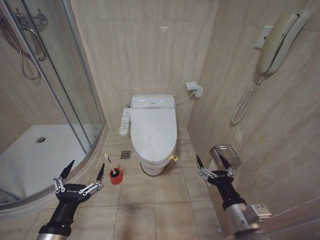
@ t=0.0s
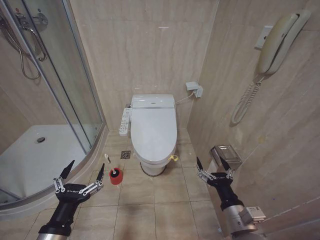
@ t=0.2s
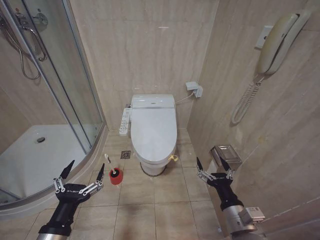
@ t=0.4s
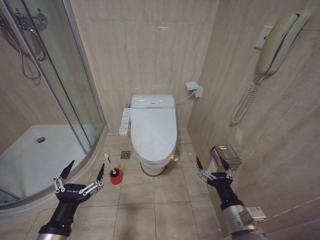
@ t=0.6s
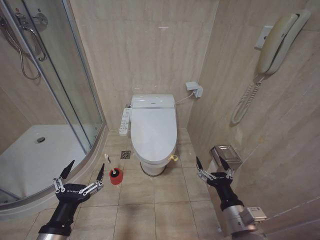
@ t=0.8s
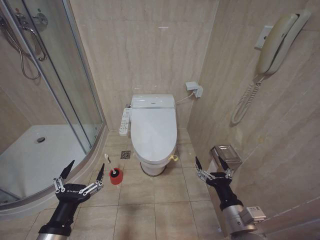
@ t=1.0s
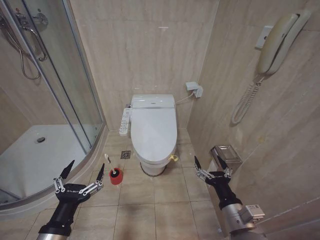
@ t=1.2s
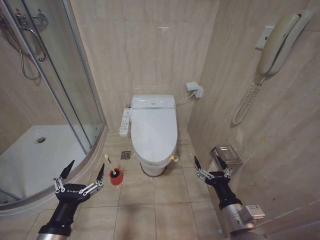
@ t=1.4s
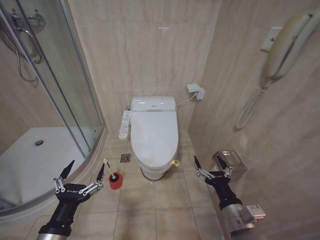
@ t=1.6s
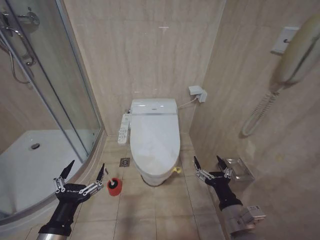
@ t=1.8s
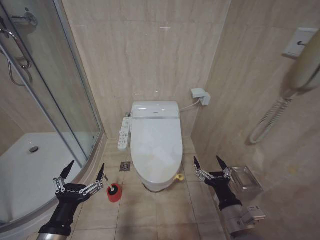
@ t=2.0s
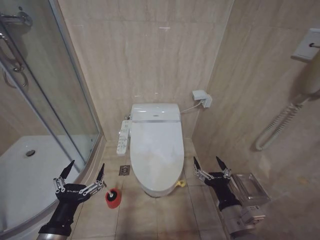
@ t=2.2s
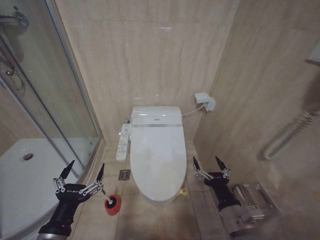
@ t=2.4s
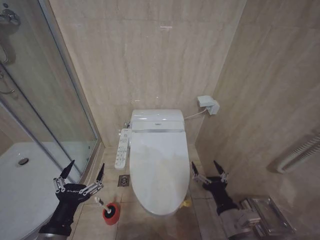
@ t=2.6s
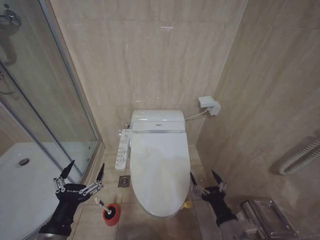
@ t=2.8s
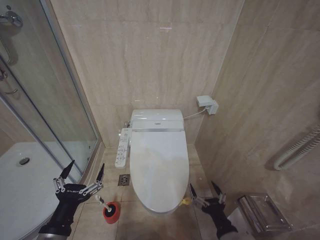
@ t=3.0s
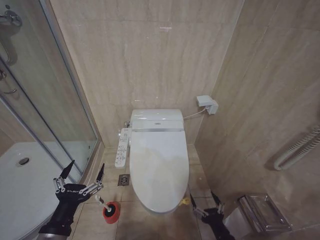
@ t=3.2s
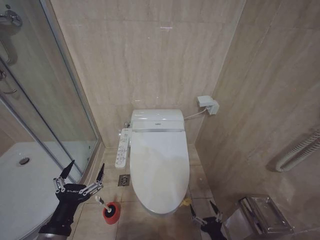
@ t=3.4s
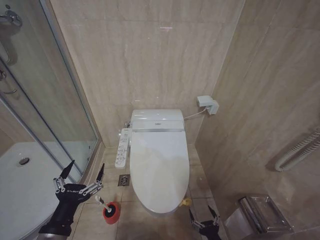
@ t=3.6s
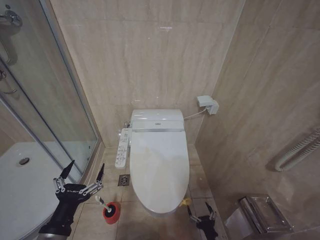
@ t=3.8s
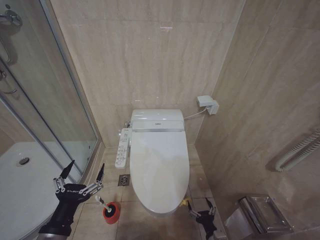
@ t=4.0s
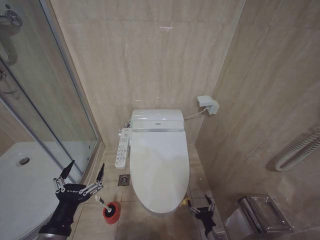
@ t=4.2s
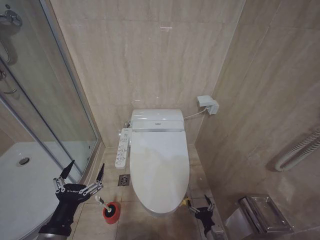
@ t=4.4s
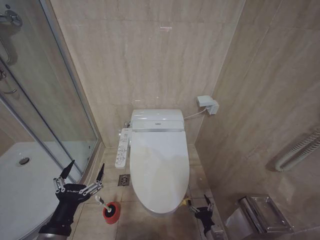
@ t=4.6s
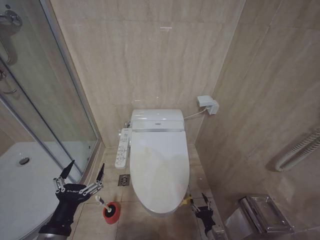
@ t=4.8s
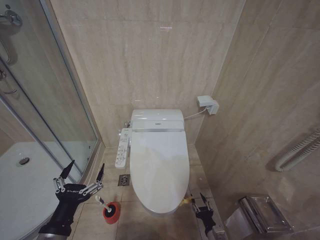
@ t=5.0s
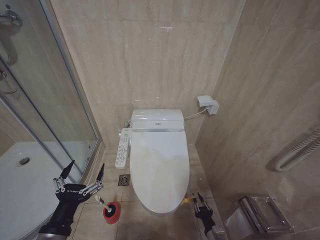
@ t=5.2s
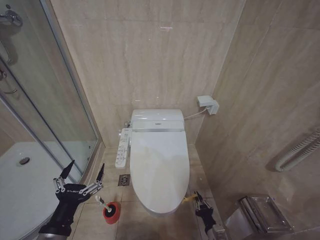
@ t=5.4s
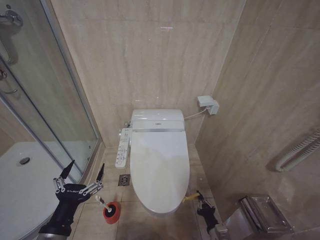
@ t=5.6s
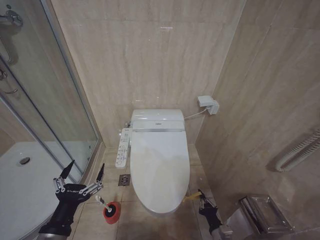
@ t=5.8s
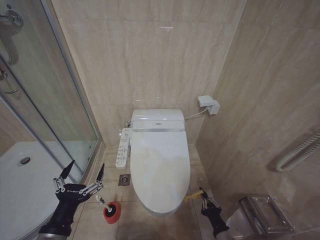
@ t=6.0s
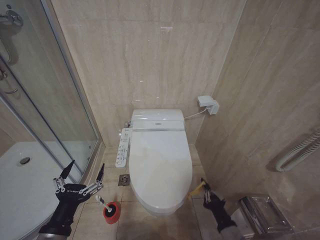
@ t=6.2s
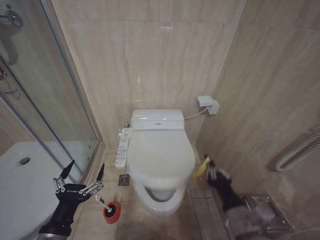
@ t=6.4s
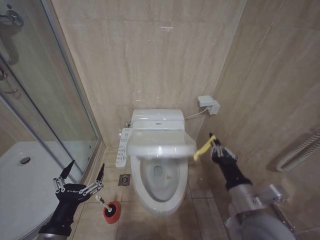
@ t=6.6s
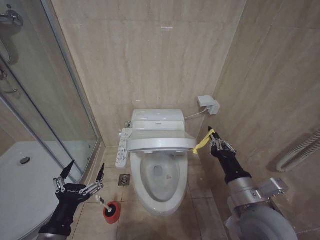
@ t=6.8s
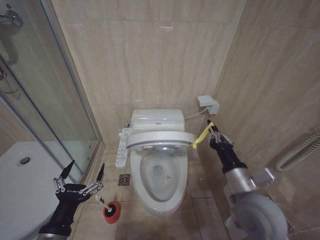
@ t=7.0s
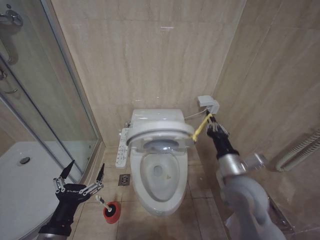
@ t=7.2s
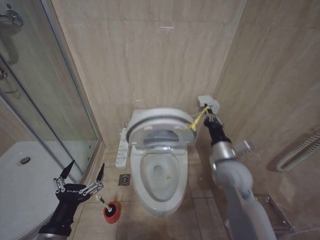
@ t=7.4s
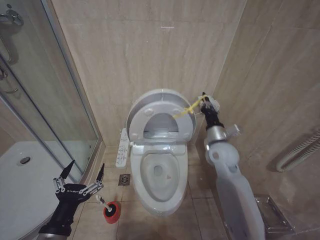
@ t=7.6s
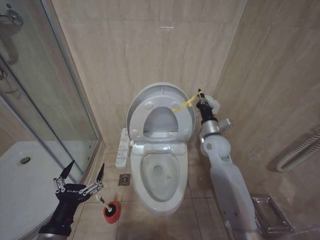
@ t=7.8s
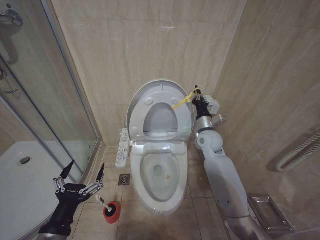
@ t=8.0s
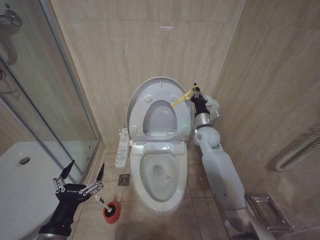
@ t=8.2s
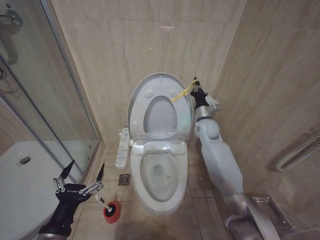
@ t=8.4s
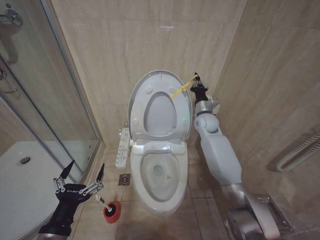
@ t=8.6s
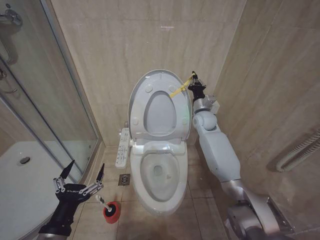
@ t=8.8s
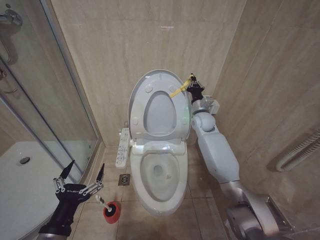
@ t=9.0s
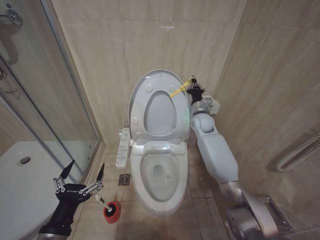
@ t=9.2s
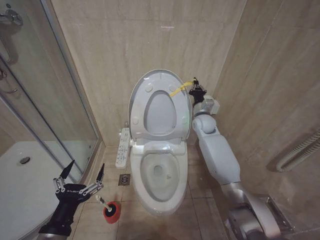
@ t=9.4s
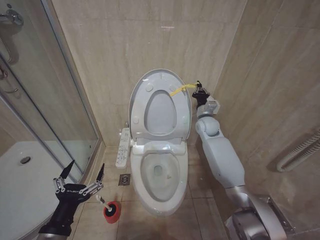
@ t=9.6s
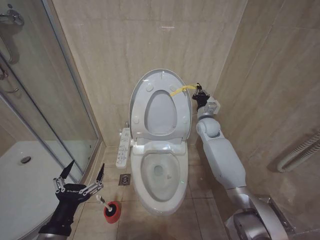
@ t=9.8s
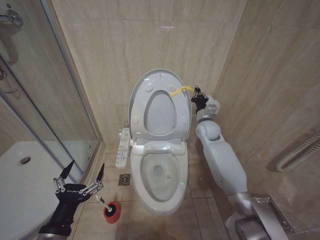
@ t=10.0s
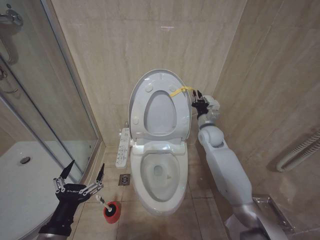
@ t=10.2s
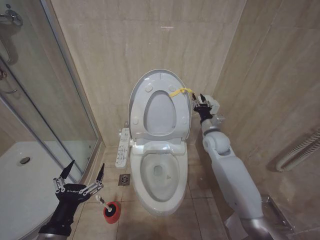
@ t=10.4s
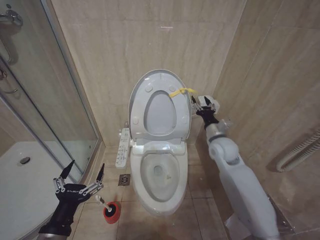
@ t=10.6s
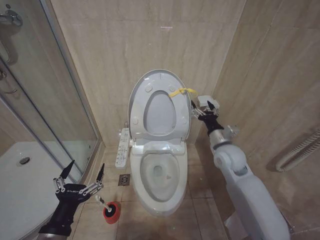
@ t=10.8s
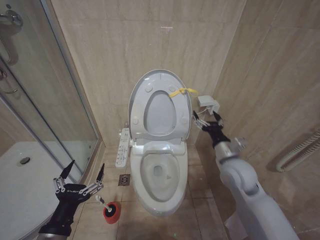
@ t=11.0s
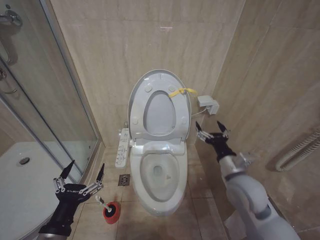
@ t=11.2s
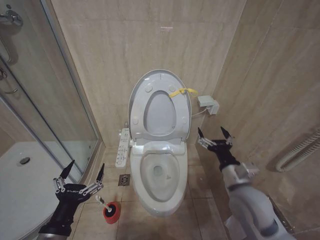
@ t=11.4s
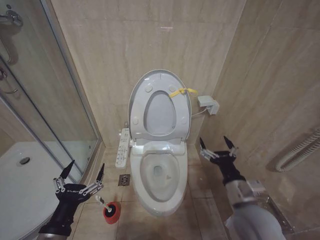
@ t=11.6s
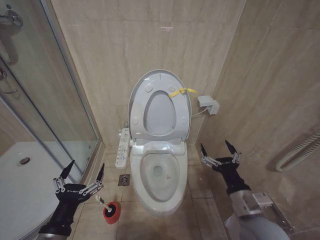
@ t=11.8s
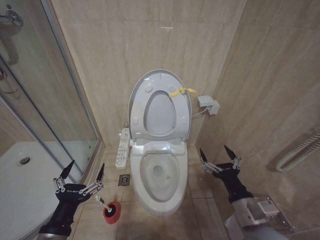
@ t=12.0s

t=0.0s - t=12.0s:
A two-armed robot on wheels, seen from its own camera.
Task of the whole recording: Open the toilet lid, clean the toilet bowl with a toilet brush, close the toilet lid, and flush.
t=1.6s - t=3.0s: The right gripper heads downward, covering approximately 5 cm.
t=3.0s - t=4.4s: The right gripper goes roughly 20 cm downward.
t=4.4s - t=6.0s: The right gripper moves upward, approximately 5 cm, and closes up.
t=6.0s - t=7.6s: The right gripper is displaced upward and forward by some 35 cm.
t=7.6s - t=9.0s: The right gripper heads forward, covering some 20 cm.
t=9.0s - t=10.4s: The right gripper is displaced backward by about 10 cm.
t=10.4s - t=12.0s: The right gripper is displaced backward by approximately 30 cm, and opens up.

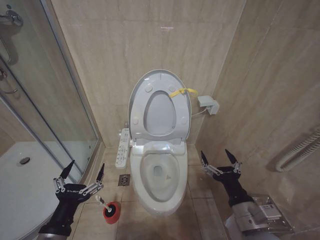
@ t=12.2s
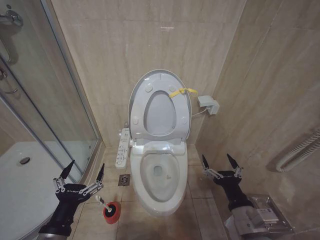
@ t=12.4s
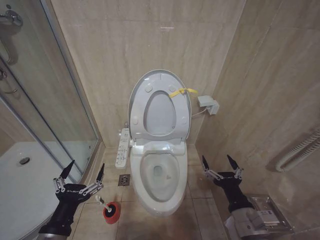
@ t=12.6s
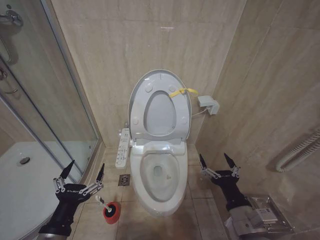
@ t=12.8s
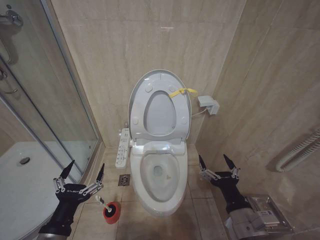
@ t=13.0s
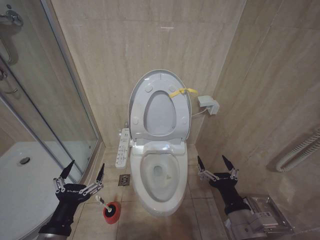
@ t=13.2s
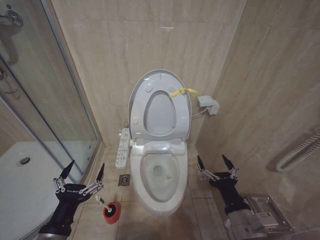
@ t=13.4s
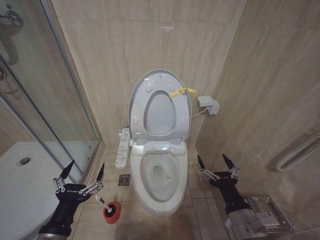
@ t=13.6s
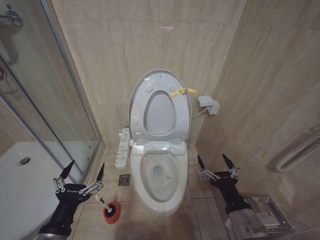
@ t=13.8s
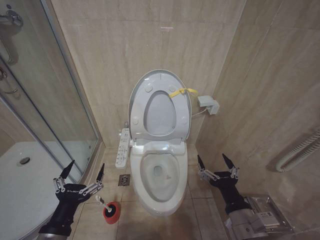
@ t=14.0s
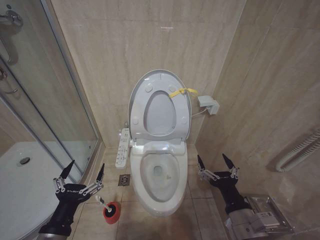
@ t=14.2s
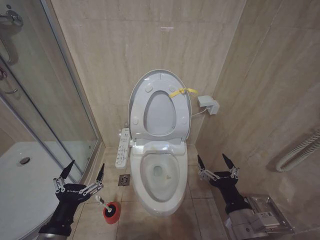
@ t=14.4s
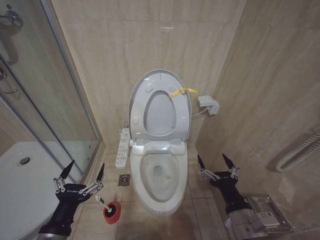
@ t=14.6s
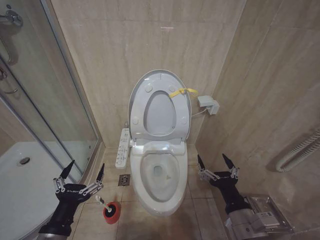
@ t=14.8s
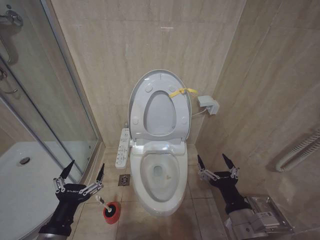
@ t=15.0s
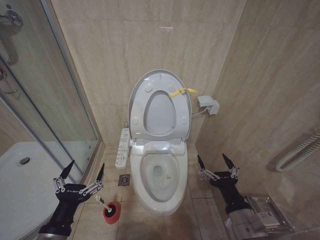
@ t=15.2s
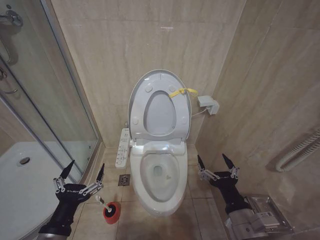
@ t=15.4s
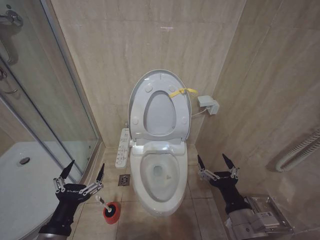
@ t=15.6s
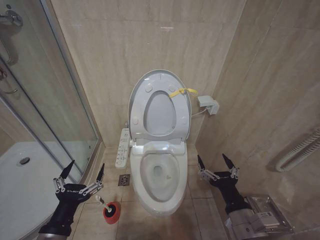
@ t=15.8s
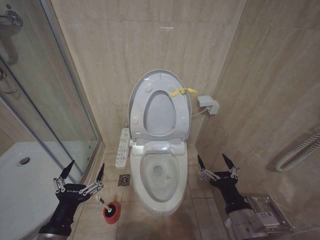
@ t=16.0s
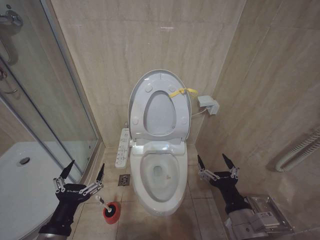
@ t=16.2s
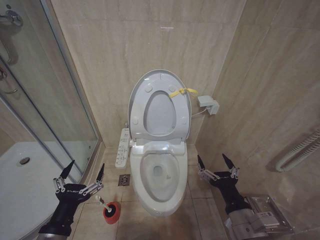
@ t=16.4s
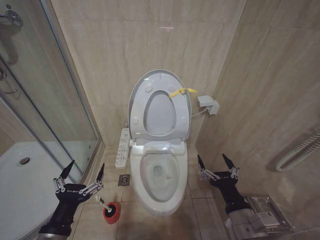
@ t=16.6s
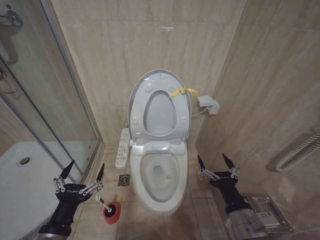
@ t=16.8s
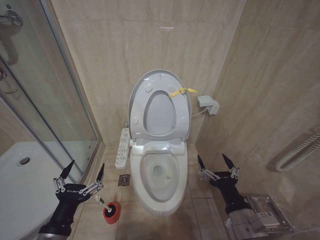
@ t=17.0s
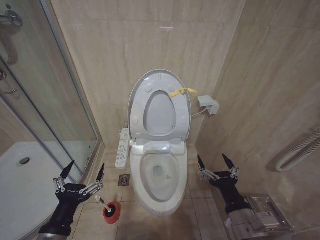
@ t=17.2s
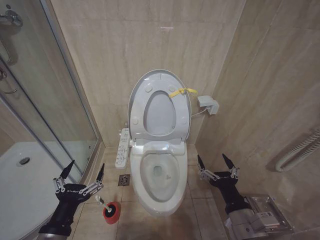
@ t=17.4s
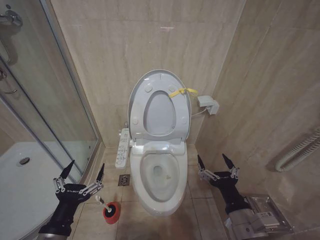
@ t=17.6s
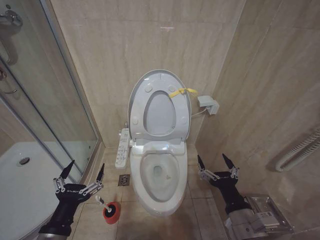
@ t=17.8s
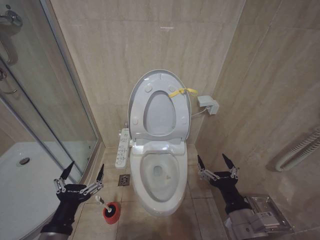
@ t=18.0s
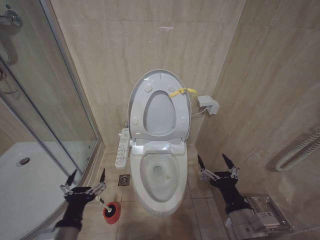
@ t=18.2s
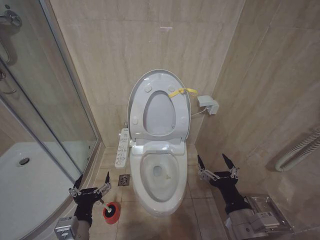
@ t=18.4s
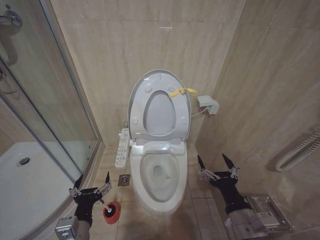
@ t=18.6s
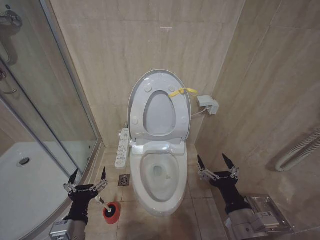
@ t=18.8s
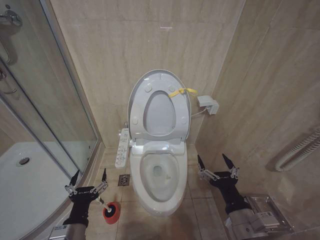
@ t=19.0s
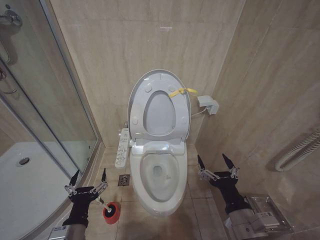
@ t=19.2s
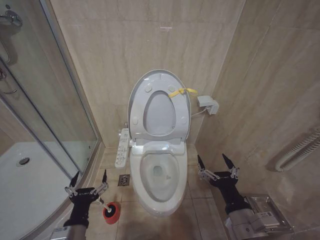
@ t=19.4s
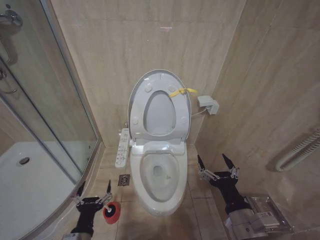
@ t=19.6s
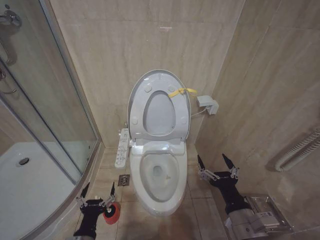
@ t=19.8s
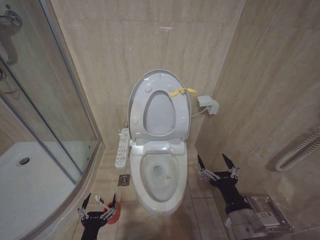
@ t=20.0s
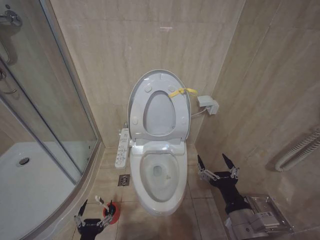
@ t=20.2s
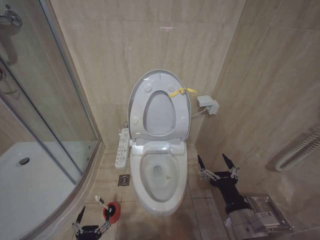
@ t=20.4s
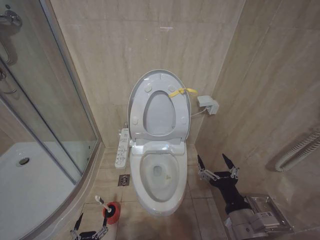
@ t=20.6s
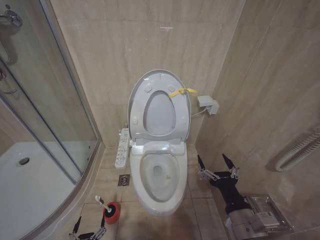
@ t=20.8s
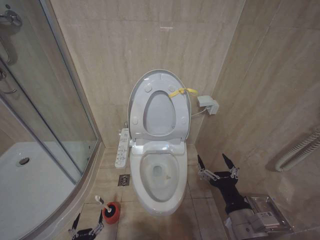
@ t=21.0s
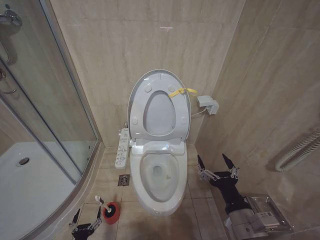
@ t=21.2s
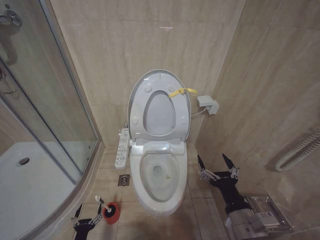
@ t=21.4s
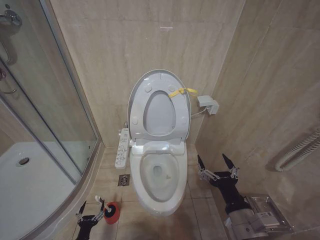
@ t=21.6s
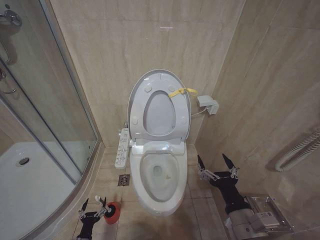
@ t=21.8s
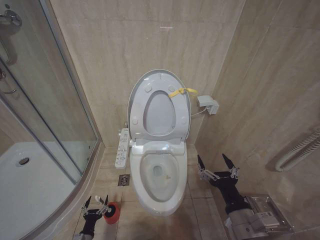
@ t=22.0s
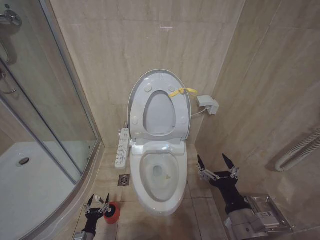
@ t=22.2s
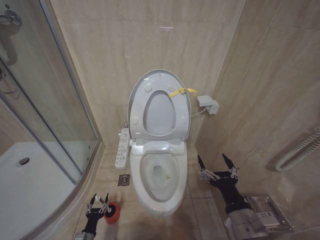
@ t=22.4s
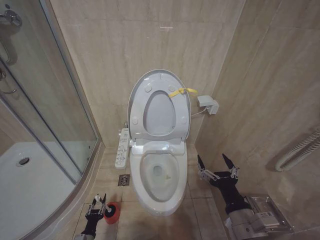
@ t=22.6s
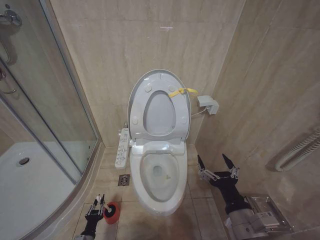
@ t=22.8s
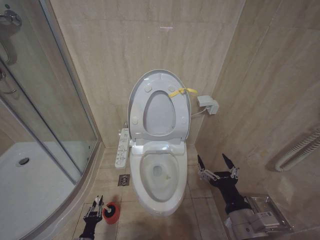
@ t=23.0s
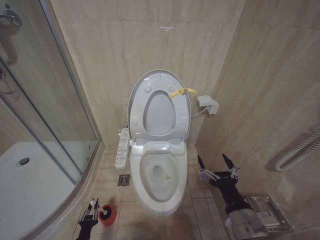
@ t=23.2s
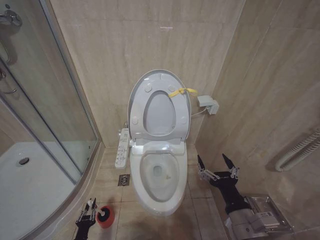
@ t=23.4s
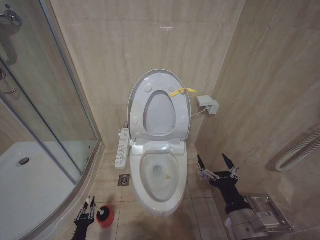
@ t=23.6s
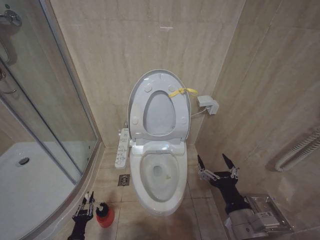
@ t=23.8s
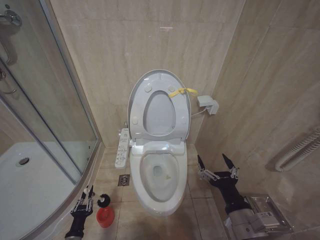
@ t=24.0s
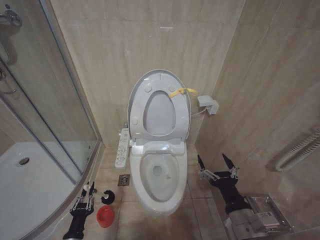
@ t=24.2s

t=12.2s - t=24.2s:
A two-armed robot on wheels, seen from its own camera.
Task of the whole recording: Open the toilet lid, clean the toilet bowl with a toilet brush, close the toilet lid, and flush.
t=12.2s - t=13.8s: The grippers stay close to where they were, moving slightly.
t=13.8s - t=16.6s: Both grippers stay about where they are.
t=16.6s - t=18.2s: The grippers stay close to where they were, moving slightly.
t=18.2s - t=19.8s: The left gripper is displaced downward by approximately 10 cm.
t=19.8s - t=21.2s: The left gripper heads downward, covering about 20 cm.
t=21.2s - t=22.6s: The left gripper shifts some 10 cm forward, and closes.
t=22.6s - t=24.2s: The left gripper goes roughly 10 cm upward, and closes up.
